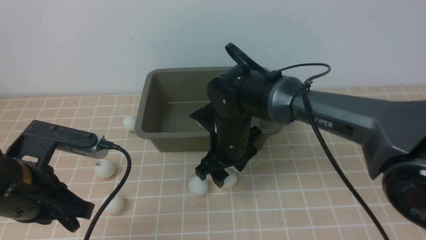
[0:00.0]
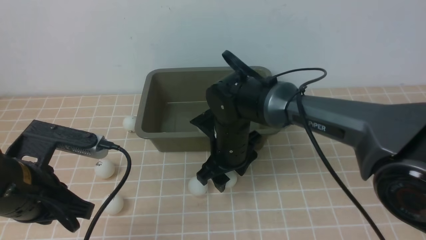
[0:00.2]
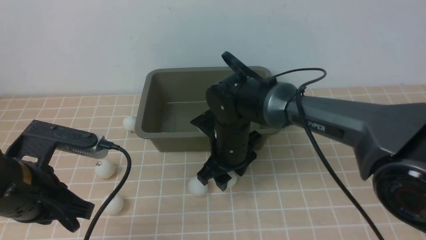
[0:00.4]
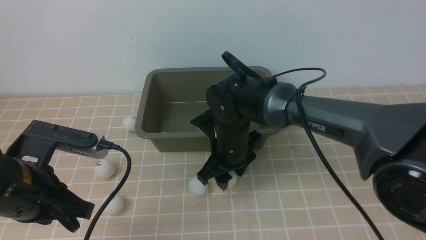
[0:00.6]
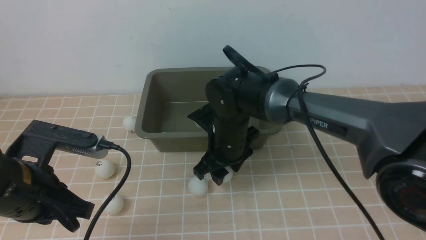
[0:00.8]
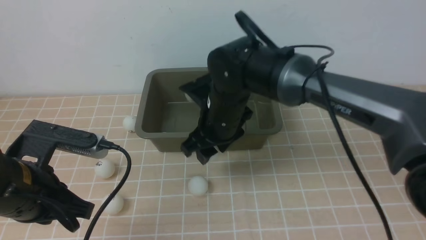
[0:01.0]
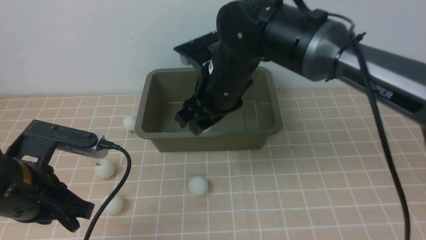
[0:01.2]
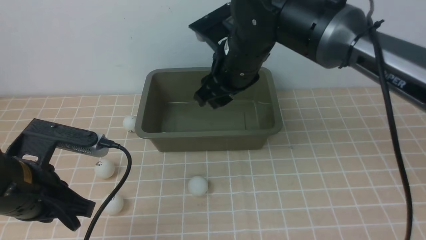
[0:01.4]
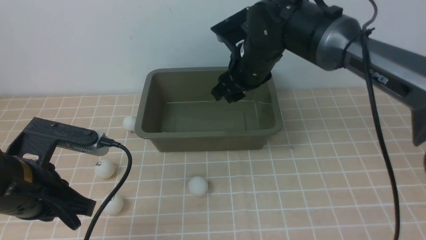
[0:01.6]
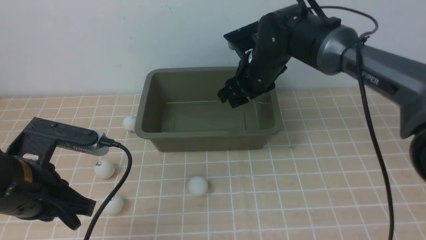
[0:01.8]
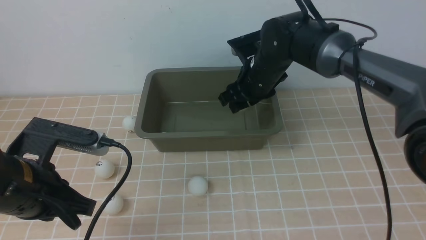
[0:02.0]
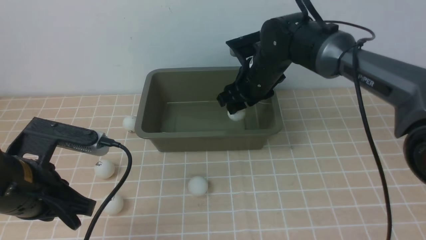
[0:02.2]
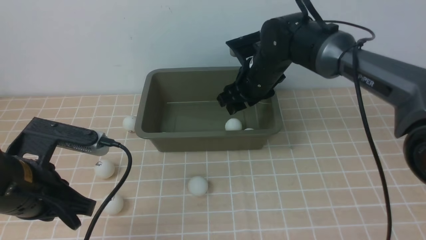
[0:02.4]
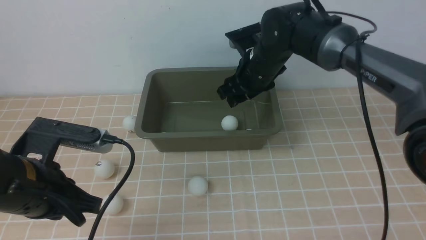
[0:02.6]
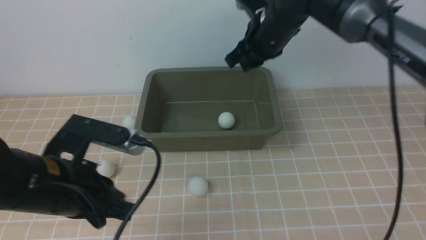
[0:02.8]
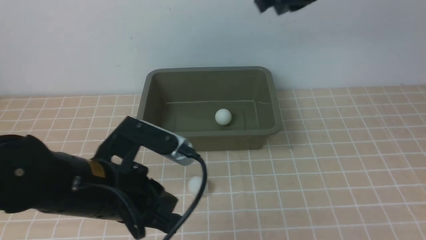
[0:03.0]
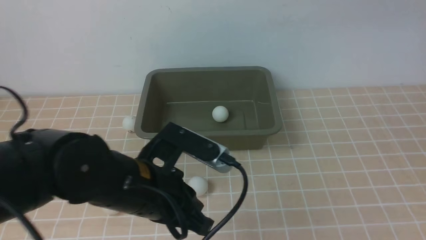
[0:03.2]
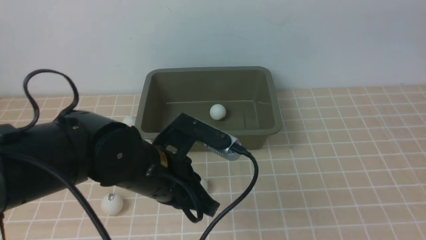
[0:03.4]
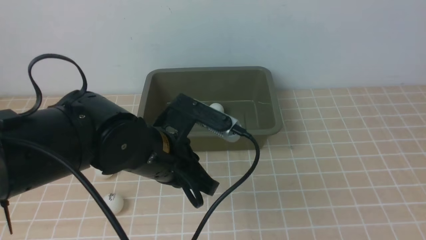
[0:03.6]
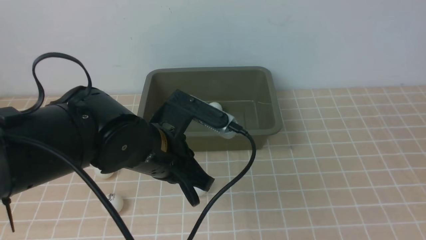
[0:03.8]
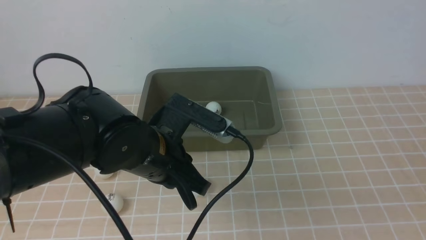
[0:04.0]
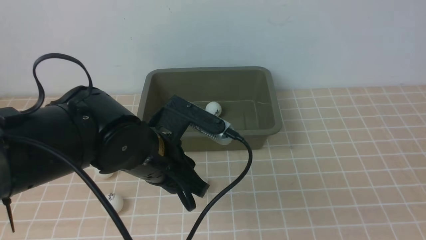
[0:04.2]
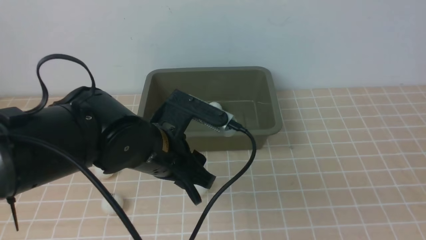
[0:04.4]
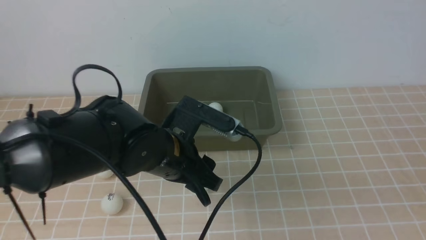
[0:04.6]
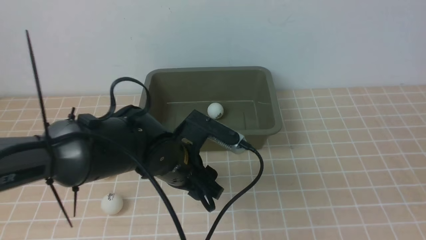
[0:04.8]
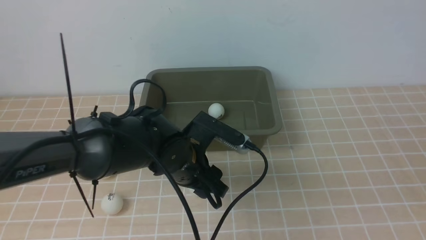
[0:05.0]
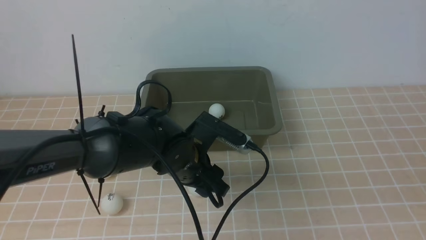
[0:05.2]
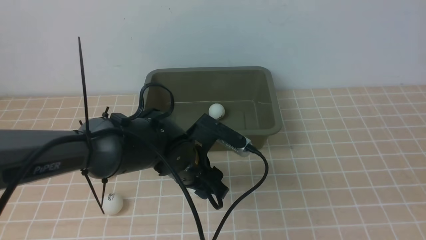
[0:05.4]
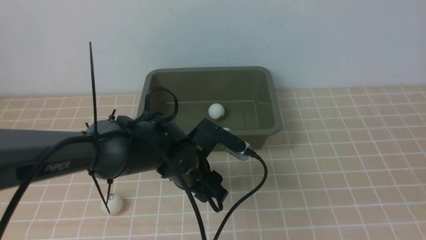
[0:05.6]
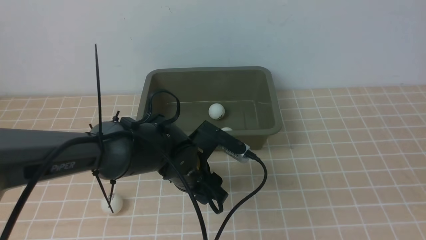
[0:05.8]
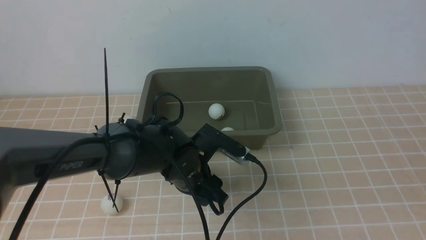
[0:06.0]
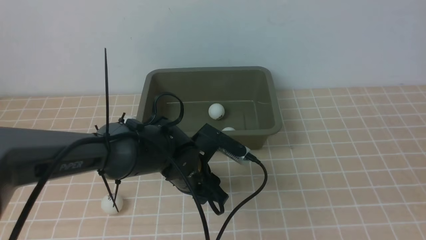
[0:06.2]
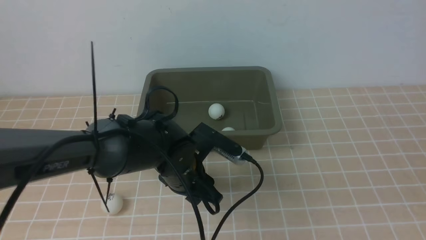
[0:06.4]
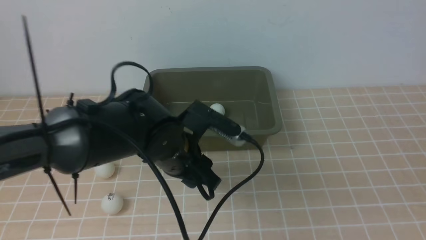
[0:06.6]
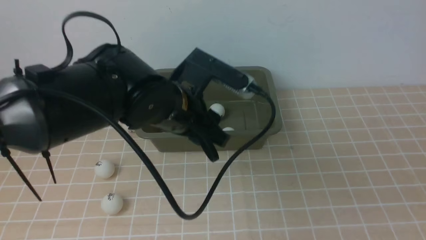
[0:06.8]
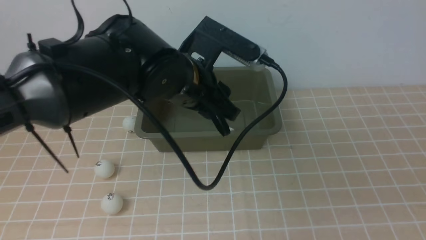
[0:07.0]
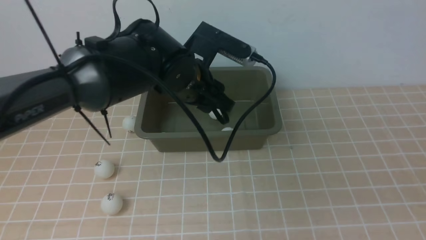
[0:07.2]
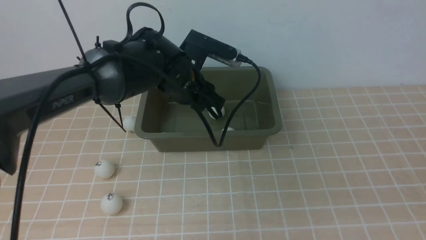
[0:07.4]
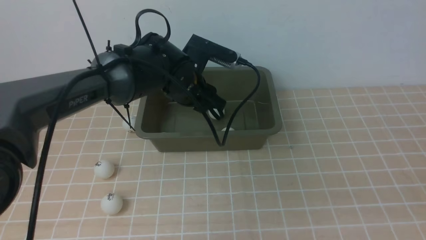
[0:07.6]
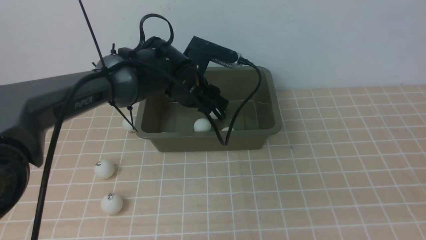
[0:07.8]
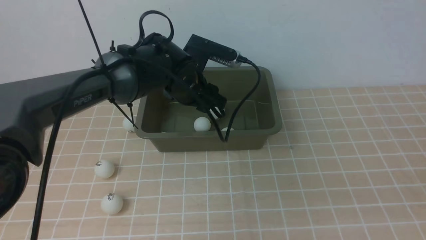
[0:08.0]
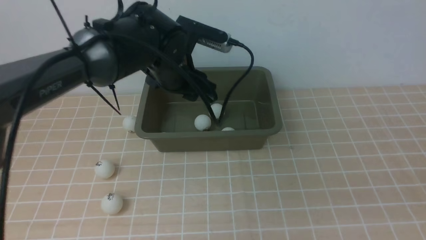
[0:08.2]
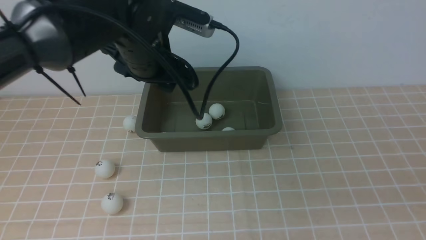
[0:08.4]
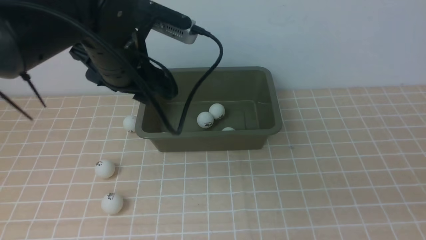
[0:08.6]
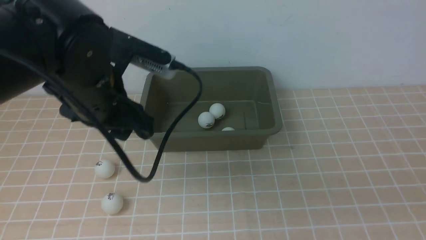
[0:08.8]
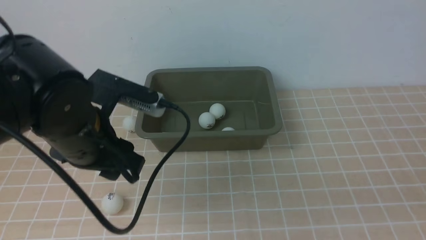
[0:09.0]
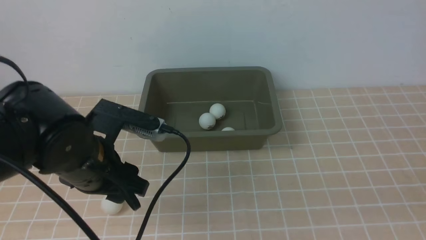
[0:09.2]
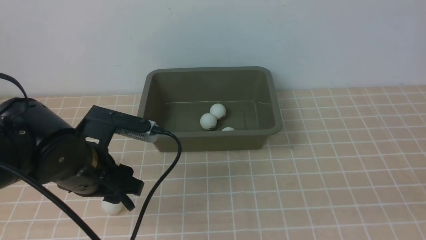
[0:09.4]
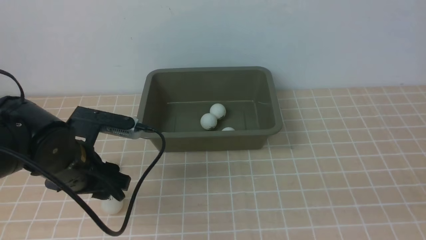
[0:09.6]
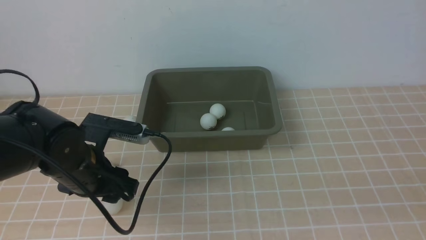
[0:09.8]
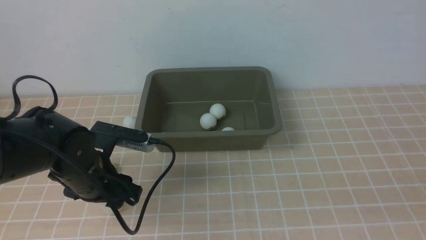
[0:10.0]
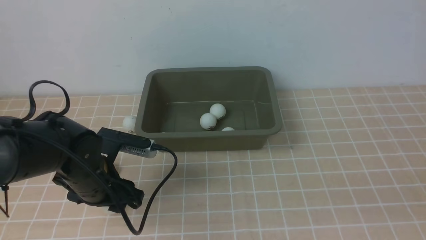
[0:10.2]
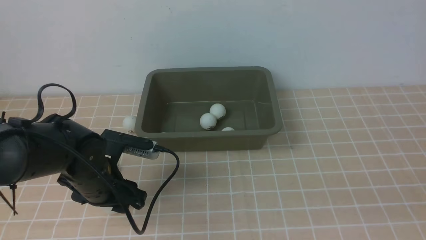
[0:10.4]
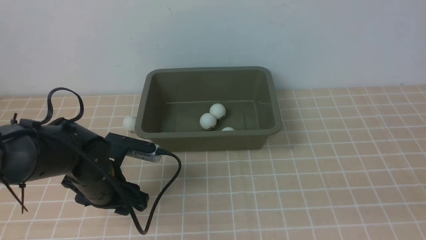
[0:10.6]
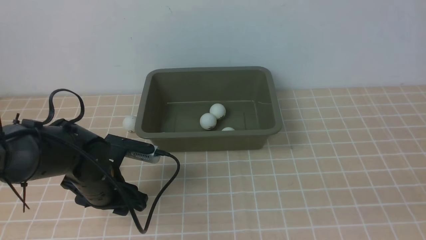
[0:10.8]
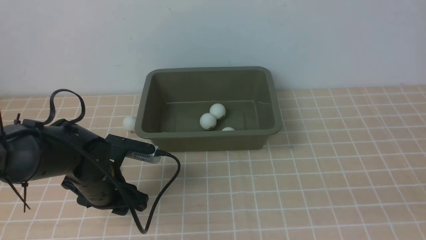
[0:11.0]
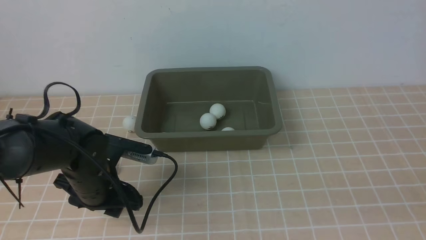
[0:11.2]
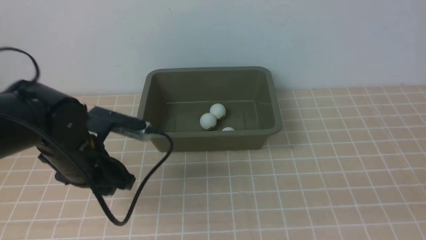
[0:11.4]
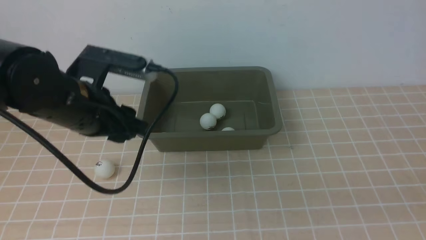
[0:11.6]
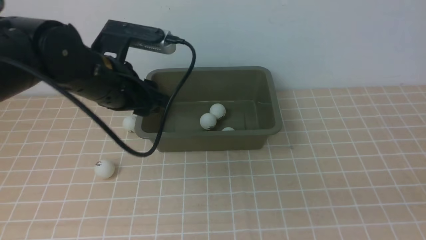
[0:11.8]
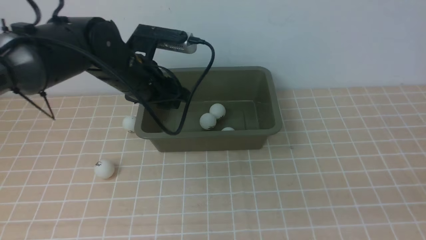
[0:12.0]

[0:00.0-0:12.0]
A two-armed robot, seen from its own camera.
Step, 1.2 to 2.6 s: use the right arm to put the table tennis ball into the box.
Step, 2.8 to 6.6 s: use the left arm to clamp the table tennis ball closest to it.
Step, 6.8 to 8.0 s: use the left arm to put the table tennis ball into the box.
Step, 8.4 to 11.4 s: use the left arm to clamp the table tennis ball closest to it.
0.0 to 1.6 s: The right gripper goes some 10 cm upward and forward.
1.6 to 3.0 s: The right gripper is displaced upward and to the right by approximately 20 cm, and closes its fingers, while the left gripper travels to the right by about 10 cm.
3.0 to 4.4 s: The left gripper travels forward and to the right by about 10 cm, and opens its fingers. The right gripper travels backward and to the right by some 40 cm.
4.4 to 6.0 s: The left gripper travels downward by roughly 10 cm.
6.0 to 7.6 s: The left gripper travels forward and upward by roughly 15 cm.
7.6 to 9.0 s: The left gripper is displaced backward and to the left by about 20 cm.
9.0 to 10.4 s: The left gripper travels downward by approximately 10 cm.
10.4 to 12.0 s: The left gripper is displaced upward and forward by some 15 cm.

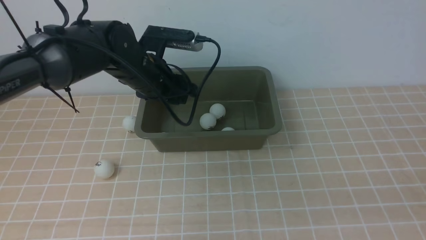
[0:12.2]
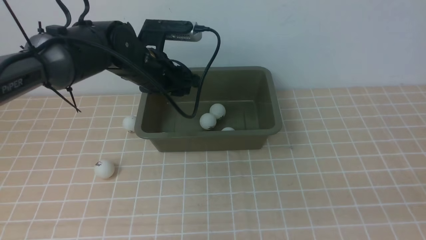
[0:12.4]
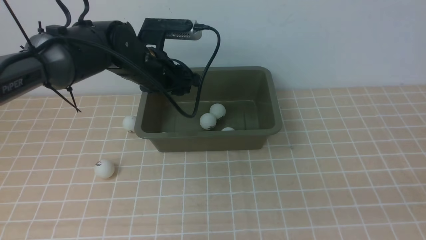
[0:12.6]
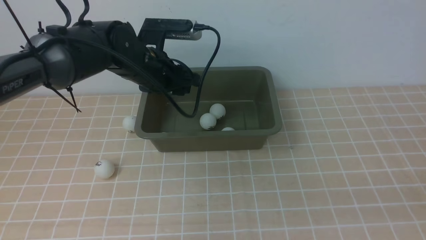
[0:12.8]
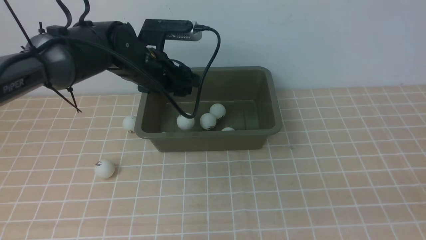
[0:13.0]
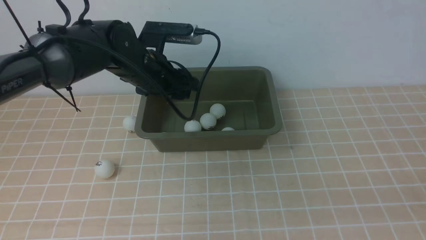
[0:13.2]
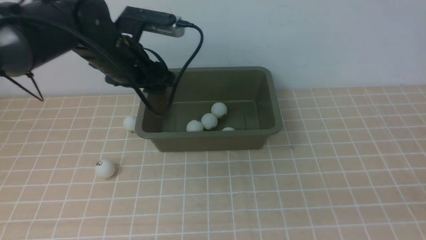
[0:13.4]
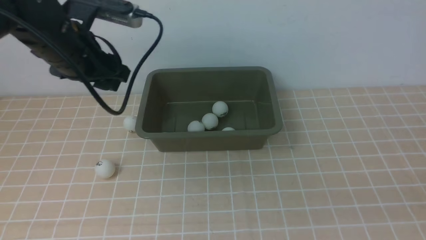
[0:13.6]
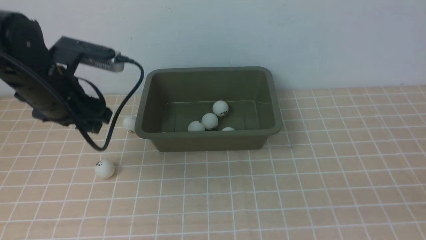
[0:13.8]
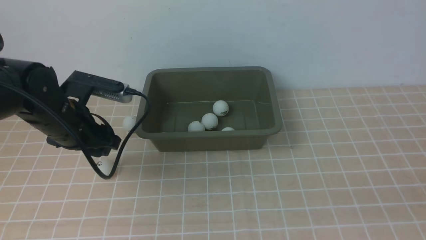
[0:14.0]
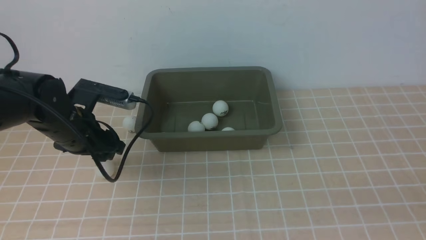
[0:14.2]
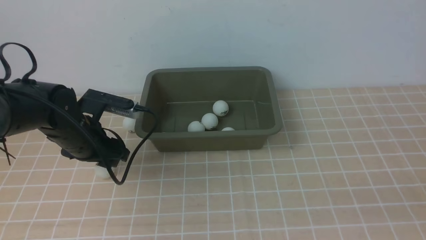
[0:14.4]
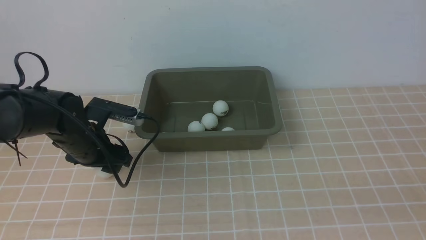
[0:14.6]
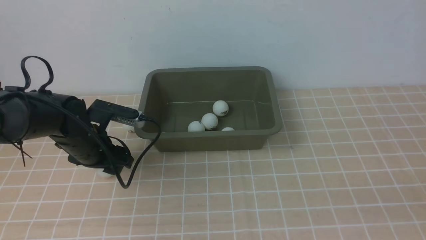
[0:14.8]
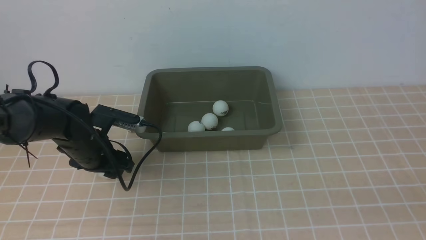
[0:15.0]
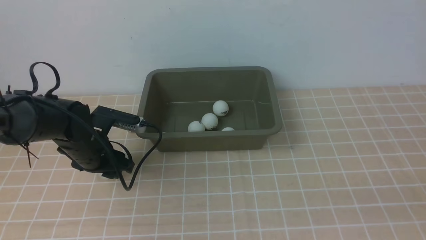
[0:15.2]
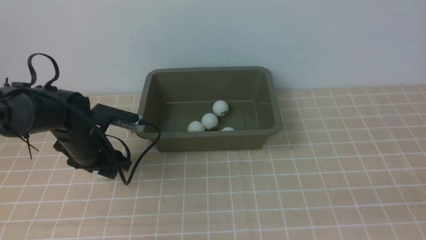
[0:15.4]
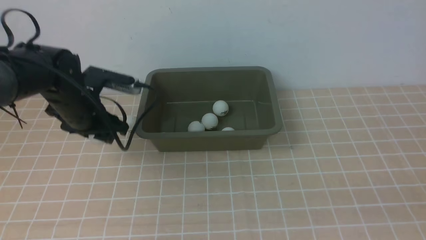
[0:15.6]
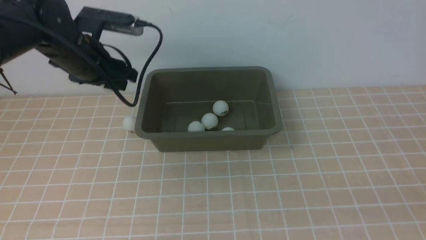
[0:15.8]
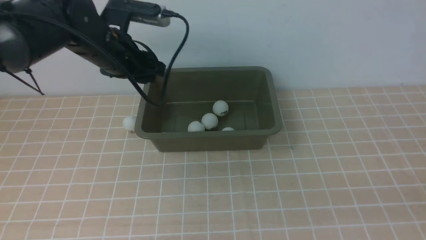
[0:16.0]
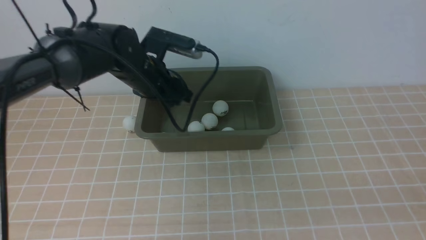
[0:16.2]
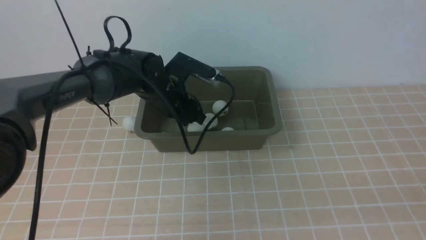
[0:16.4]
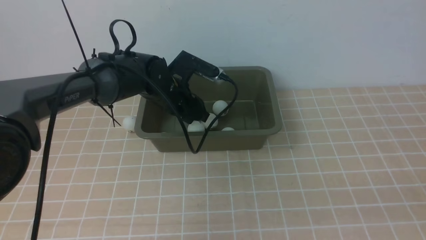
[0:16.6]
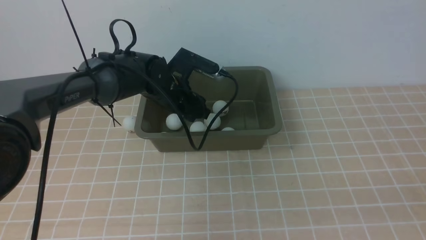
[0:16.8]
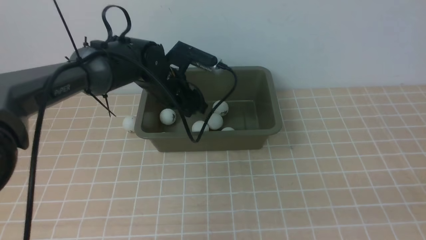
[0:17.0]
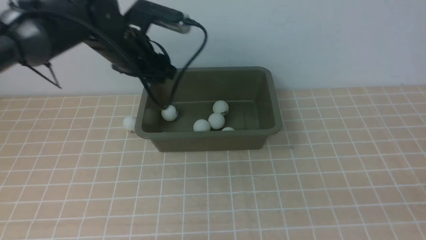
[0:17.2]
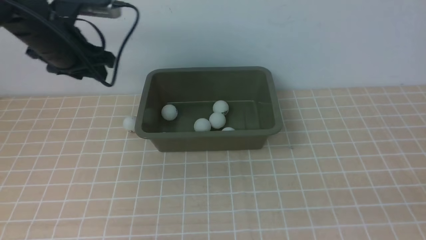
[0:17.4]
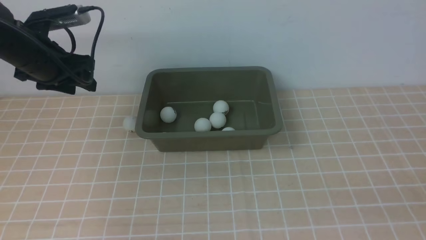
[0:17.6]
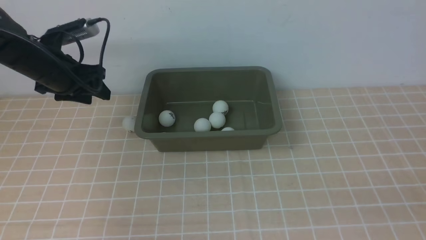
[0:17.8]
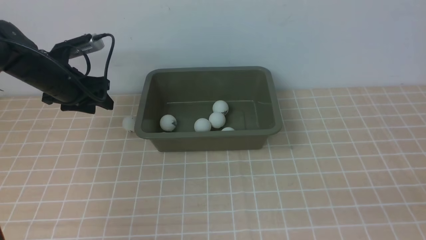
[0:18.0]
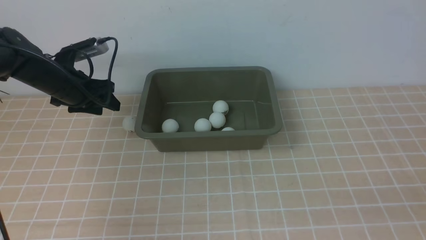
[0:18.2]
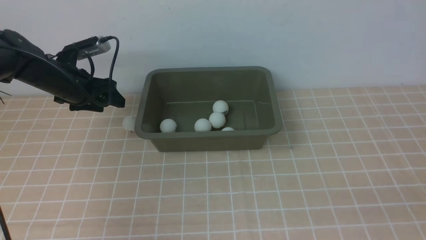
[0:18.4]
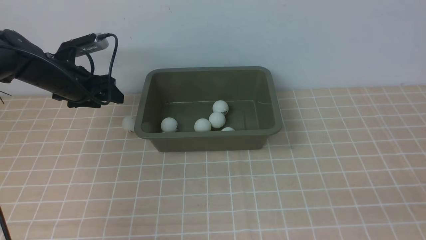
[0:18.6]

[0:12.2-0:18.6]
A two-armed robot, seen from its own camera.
Step, 12.2 to 13.2 s: use the left arm to put the table tennis ball into the box.
Step, 13.4 to 15.6 s: use the left arm to clamp the table tennis ball closest to it.
Step, 16.0 to 17.0 s: use the left arm to put the table tennis ball into the box.
12.2 to 13.8 s: The left gripper moves to the left and backward, about 10 cm.
13.8 to 15.4 s: The left gripper shifts approximately 10 cm downward.
15.4 to 17.0 s: The left gripper heads to the right, upward and forward, covering roughly 15 cm.
17.0 to 18.6 s: The left gripper heads to the left, covering some 15 cm.
